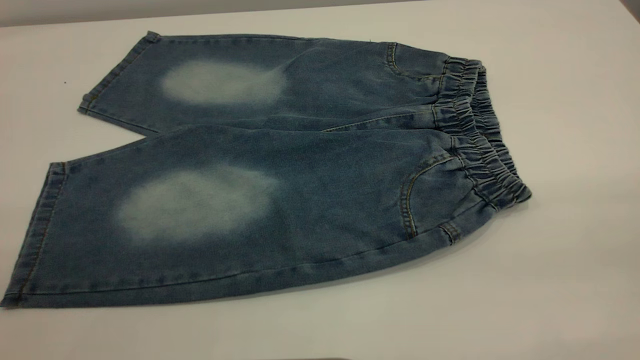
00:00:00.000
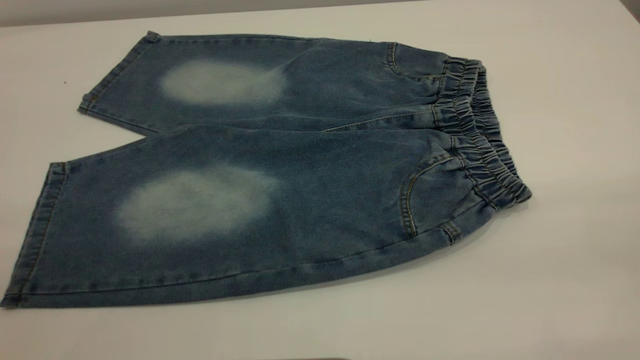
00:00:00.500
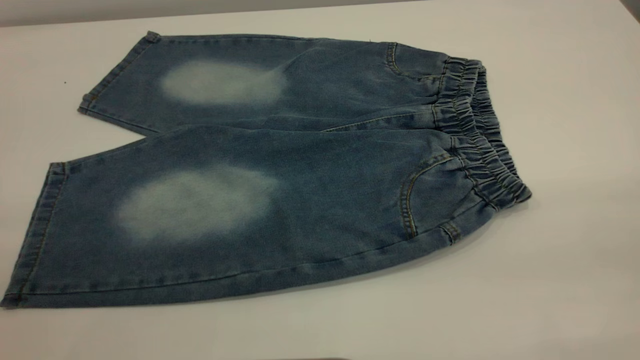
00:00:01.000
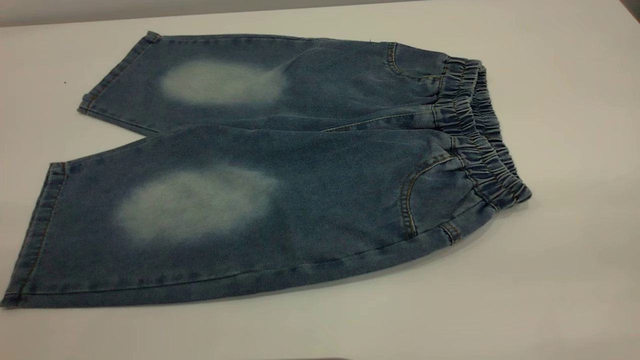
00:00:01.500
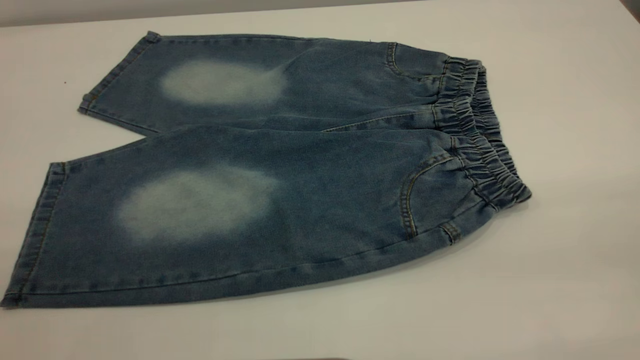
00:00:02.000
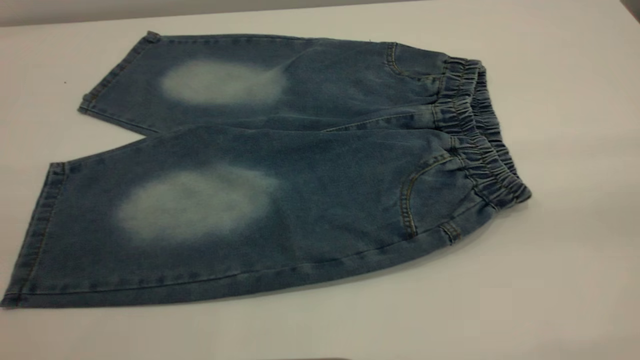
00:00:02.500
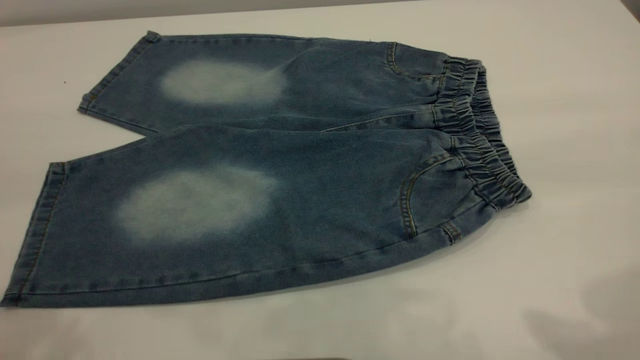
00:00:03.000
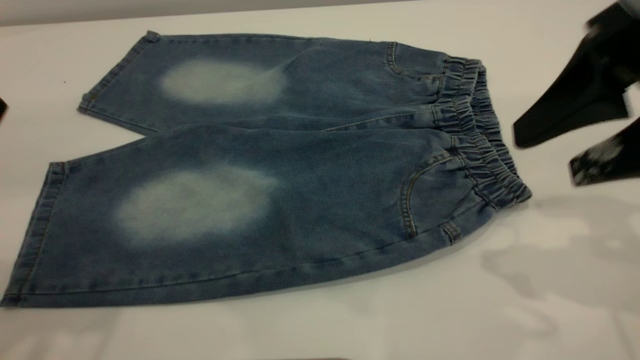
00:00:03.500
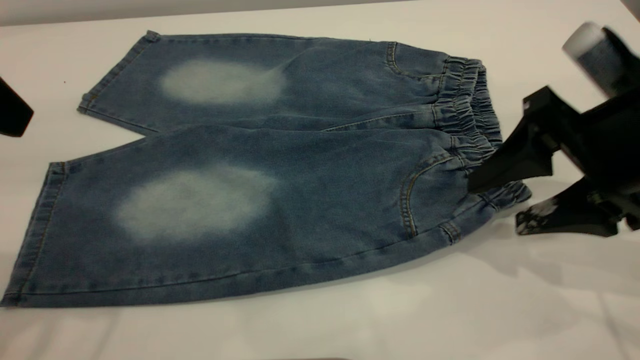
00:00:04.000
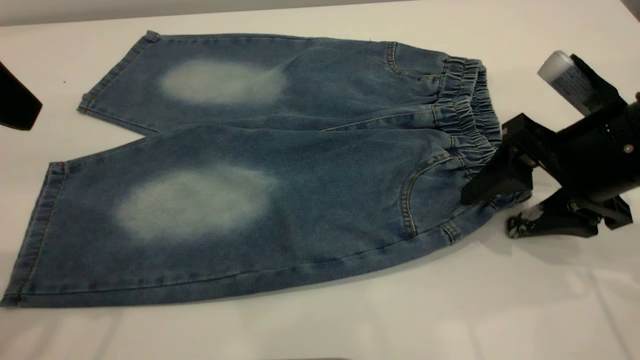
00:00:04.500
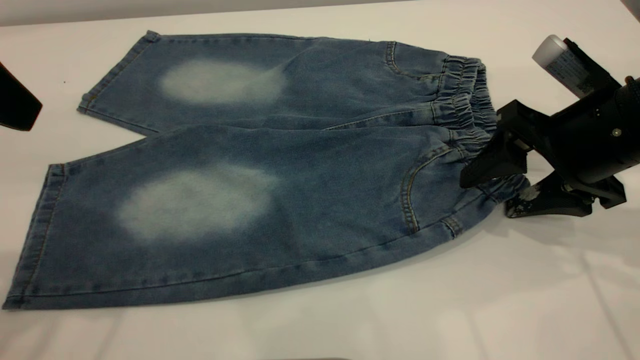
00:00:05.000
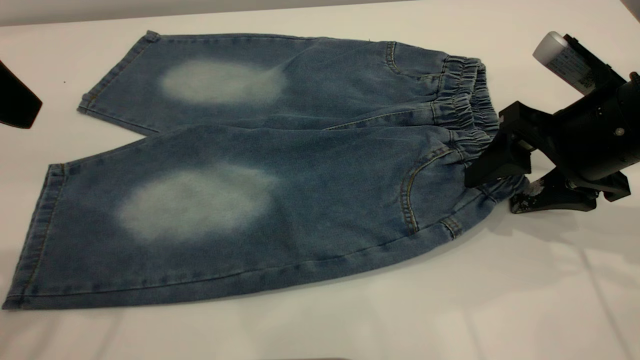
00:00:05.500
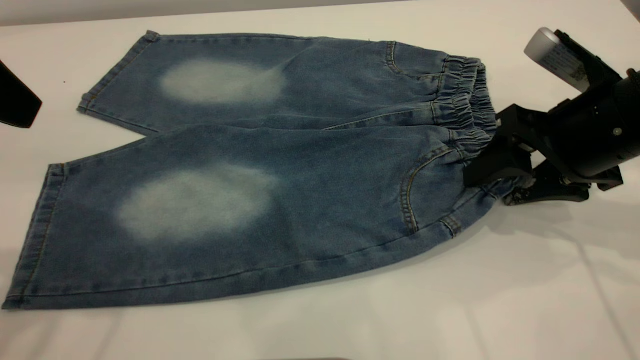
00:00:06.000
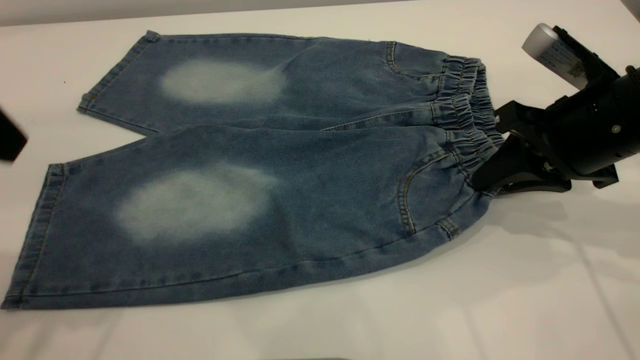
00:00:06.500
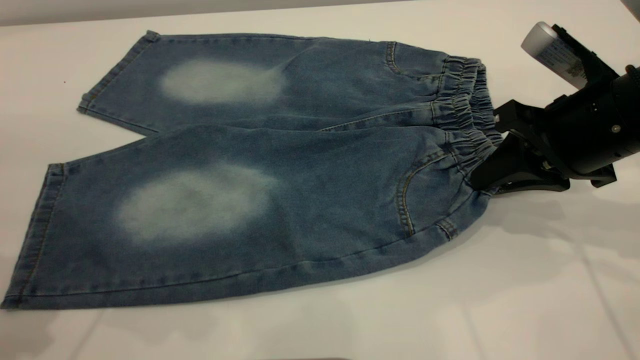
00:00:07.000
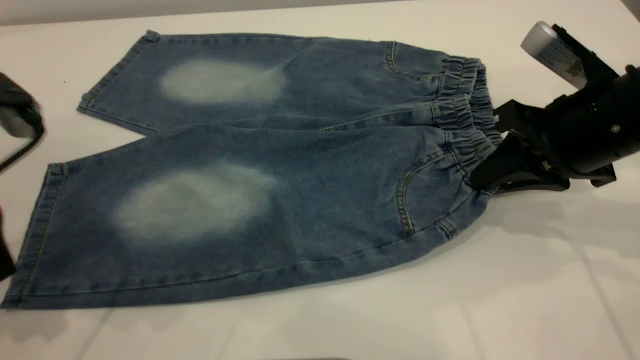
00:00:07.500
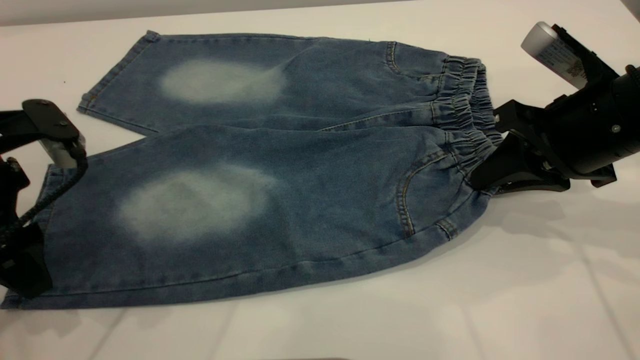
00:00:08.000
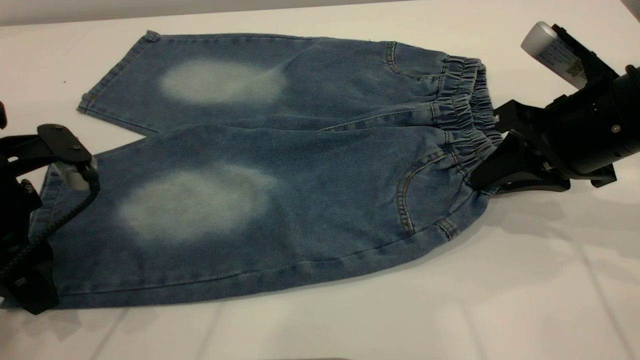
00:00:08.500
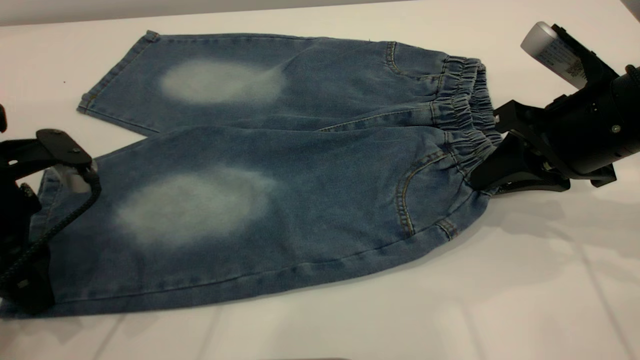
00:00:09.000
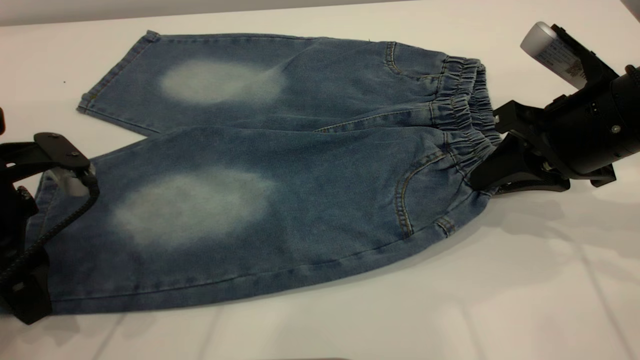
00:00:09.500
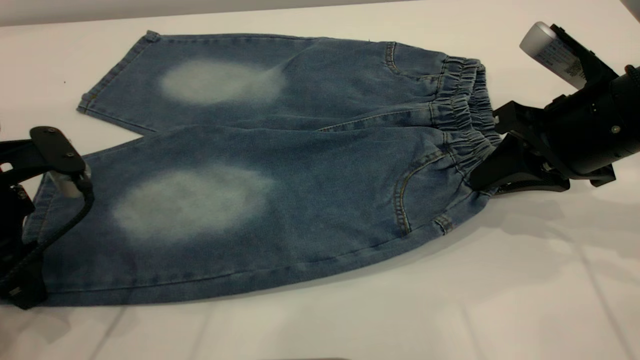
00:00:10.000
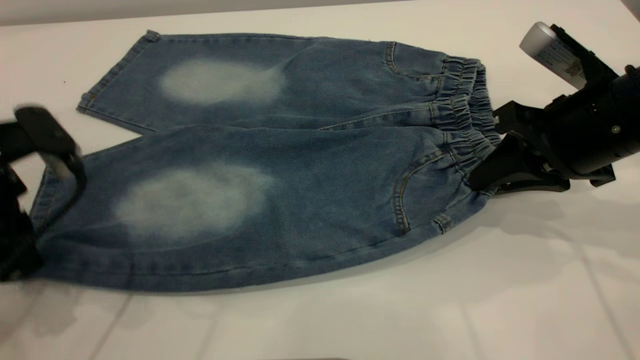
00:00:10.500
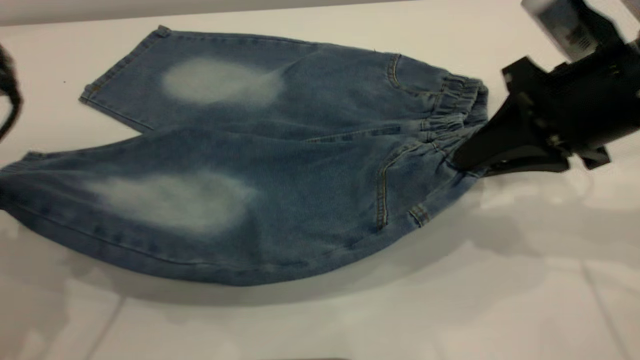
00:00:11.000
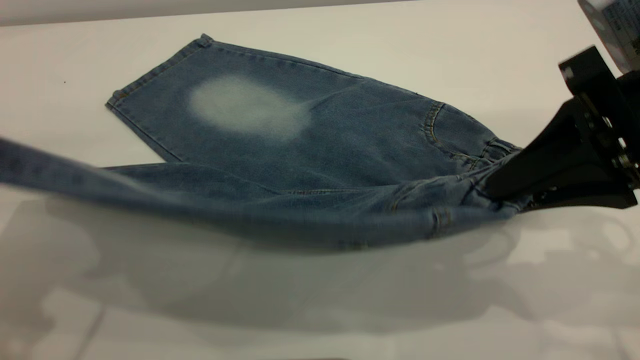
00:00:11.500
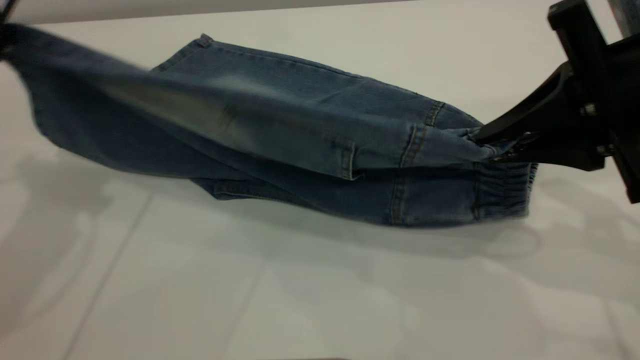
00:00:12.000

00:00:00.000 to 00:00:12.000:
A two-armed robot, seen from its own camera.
00:00:00.000 to 00:00:02.000: Both grippers stay about where they are.
00:00:02.000 to 00:00:04.000: The right gripper moves forward and downward, approximately 30 cm; the left gripper moves forward, some 25 cm.
00:00:04.000 to 00:00:06.000: The right gripper ends up about 5 cm from where it was.
00:00:06.000 to 00:00:08.000: The right gripper closes its fingers. Meanwhile the left gripper moves downward, approximately 15 cm.
00:00:08.000 to 00:00:10.000: The left gripper closes up.
00:00:10.000 to 00:00:12.000: The right gripper shifts some 5 cm upward. The left gripper goes approximately 15 cm upward and forward, and closes its fingers.

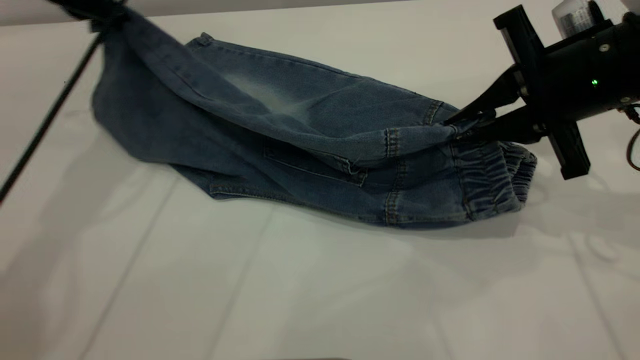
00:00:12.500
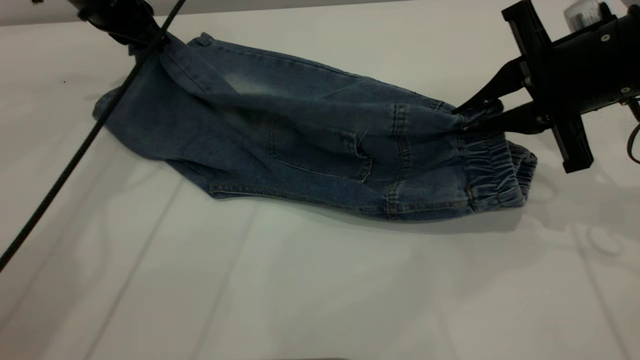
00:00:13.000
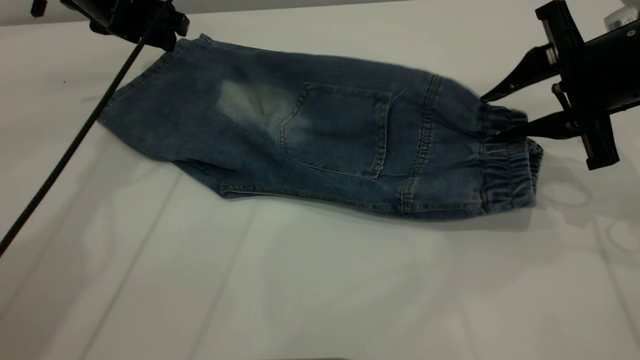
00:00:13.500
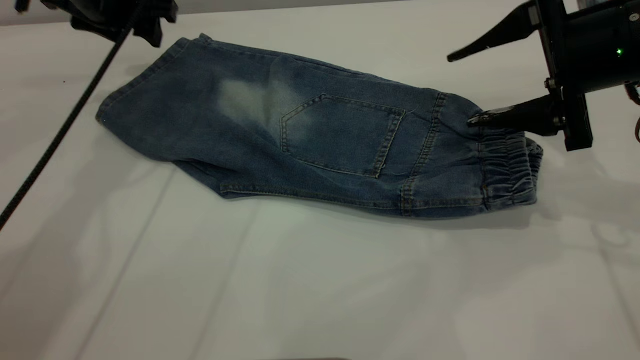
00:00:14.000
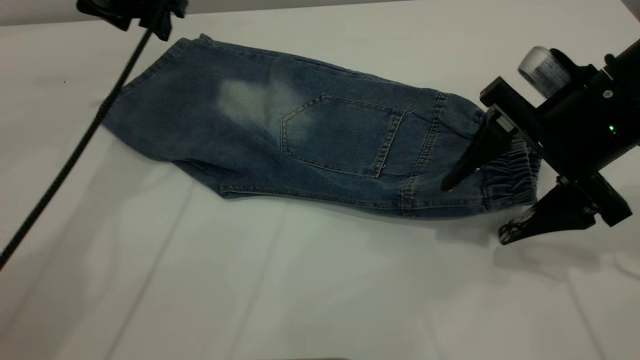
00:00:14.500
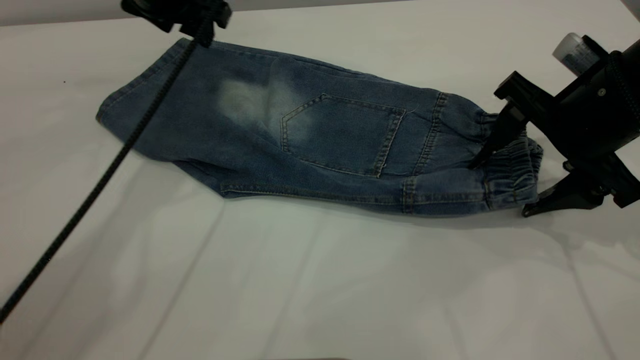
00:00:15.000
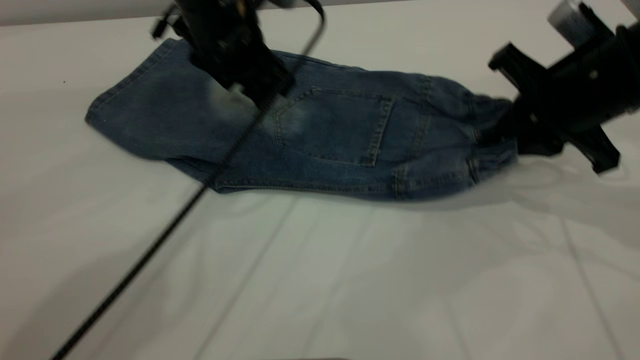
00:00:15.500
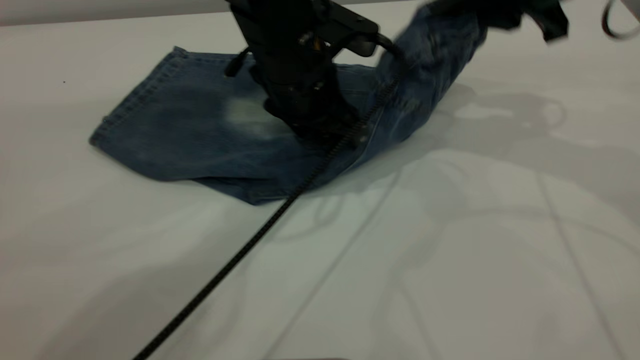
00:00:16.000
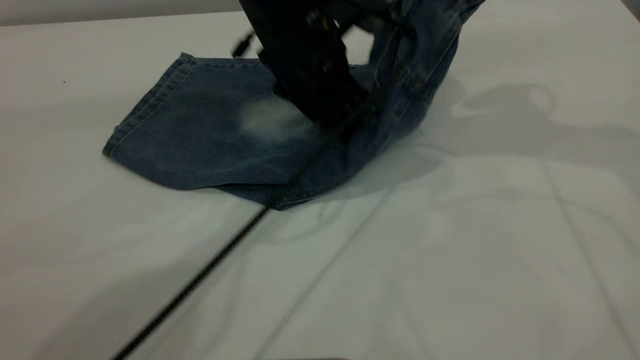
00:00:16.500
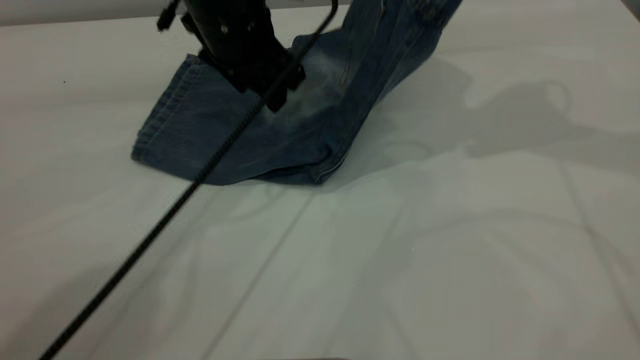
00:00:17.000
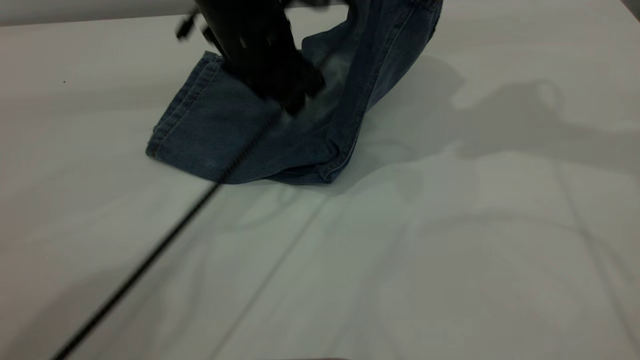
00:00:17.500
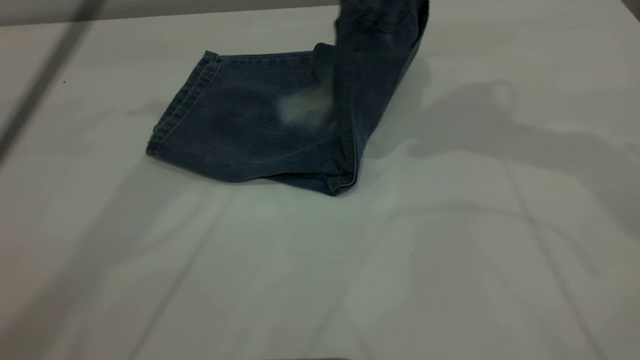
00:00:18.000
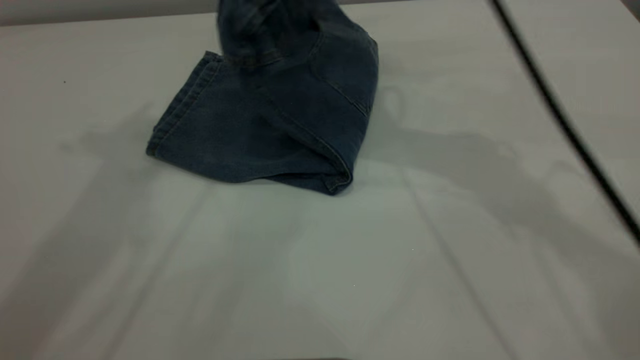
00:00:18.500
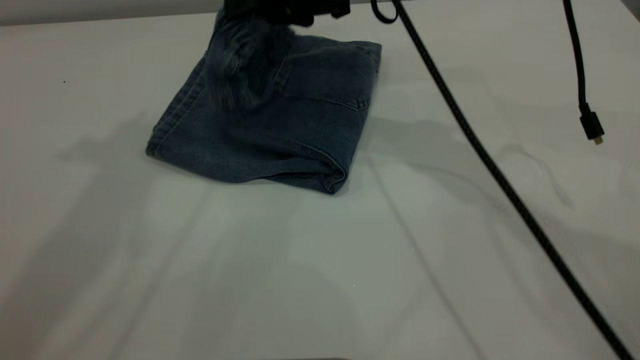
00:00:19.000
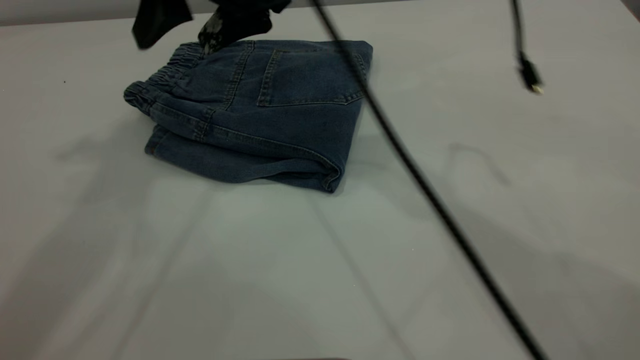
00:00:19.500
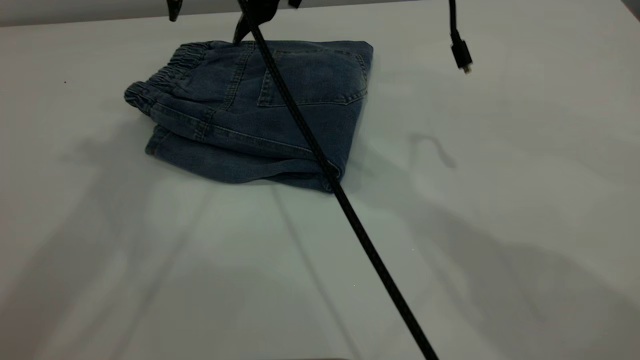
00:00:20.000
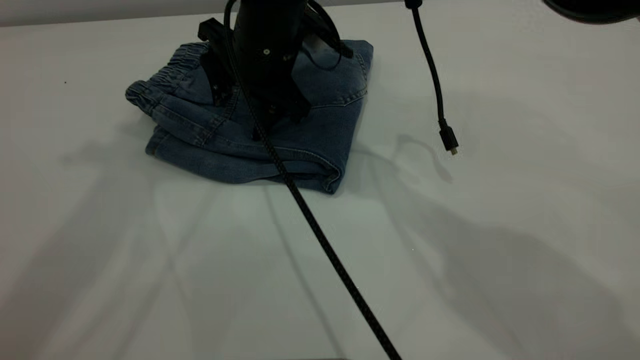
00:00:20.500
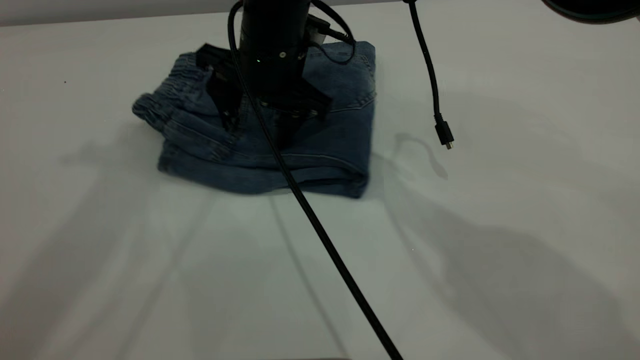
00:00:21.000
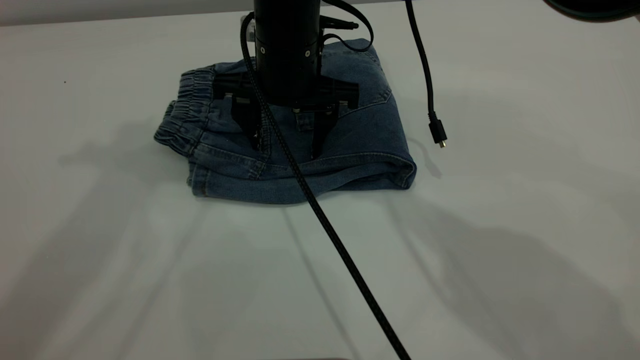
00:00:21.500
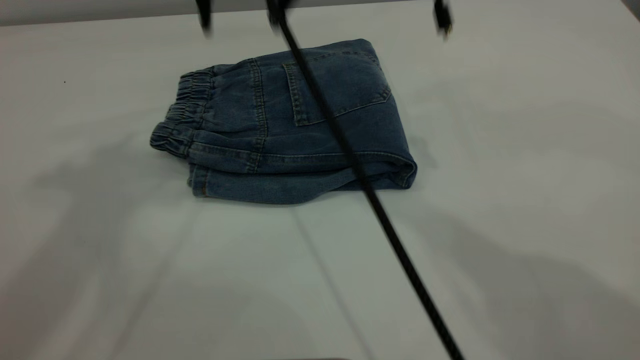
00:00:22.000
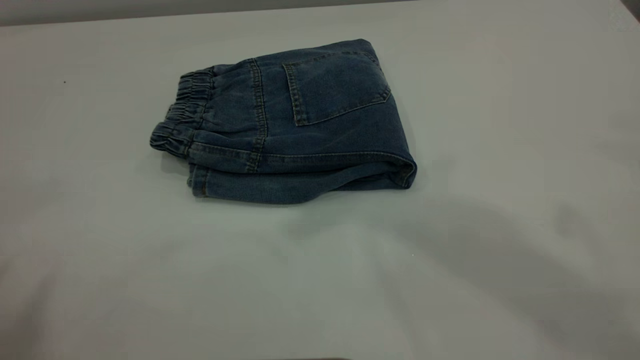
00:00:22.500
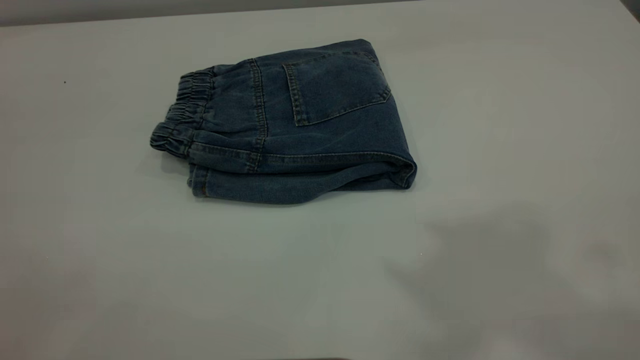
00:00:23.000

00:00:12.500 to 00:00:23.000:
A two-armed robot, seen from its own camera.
Step, 00:00:14.000 to 00:00:19.500: Fold your pants from right to left.
00:00:12.500 to 00:00:14.500: The left gripper opens up. The right gripper opens up.
00:00:14.500 to 00:00:16.500: The left gripper is displaced to the right and backward by approximately 20 cm; the right gripper is displaced upward and forward by some 15 cm, and closes.
00:00:16.500 to 00:00:19.000: The right gripper heads to the left, covering about 20 cm, and opens up; the left gripper goes approximately 35 cm upward and to the left.
00:00:19.000 to 00:00:21.000: The right gripper shifts some 10 cm to the left and downward, and opens up.
00:00:21.000 to 00:00:23.000: The left gripper shifts some 30 cm backward, while the right gripper heads upward, backward and to the right, covering approximately 50 cm.
